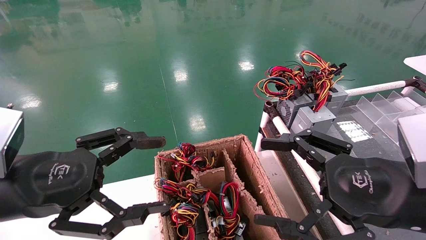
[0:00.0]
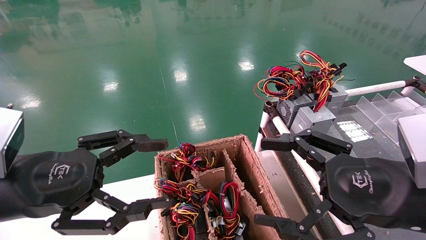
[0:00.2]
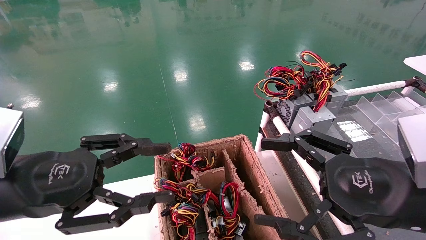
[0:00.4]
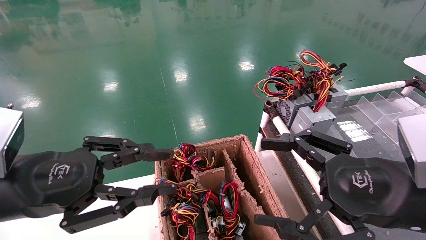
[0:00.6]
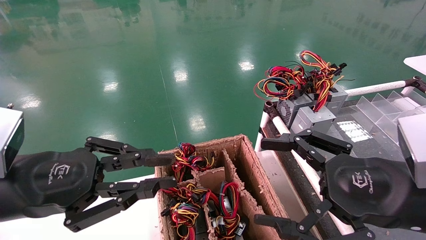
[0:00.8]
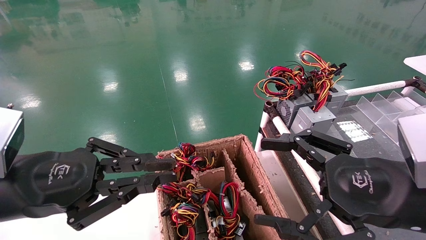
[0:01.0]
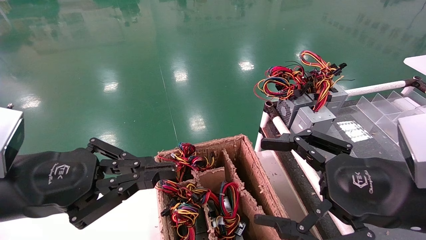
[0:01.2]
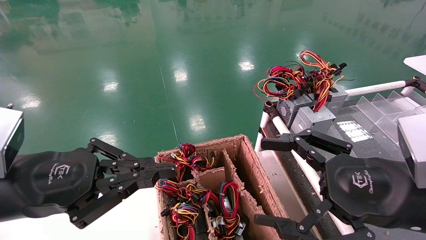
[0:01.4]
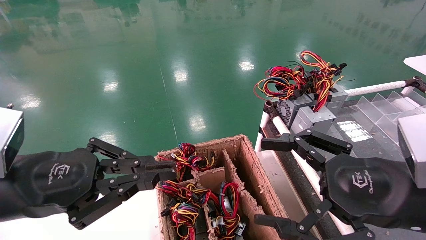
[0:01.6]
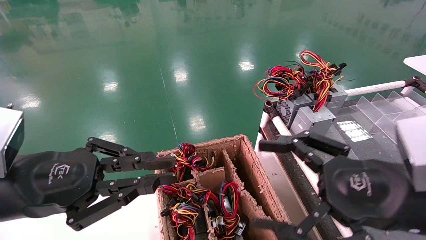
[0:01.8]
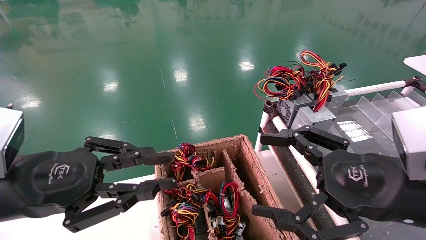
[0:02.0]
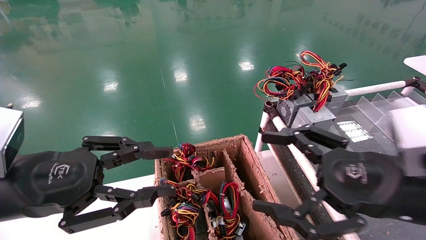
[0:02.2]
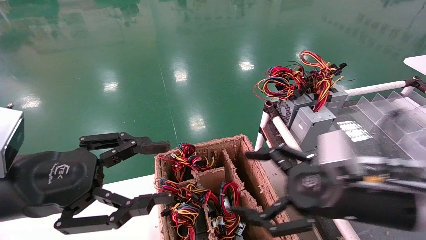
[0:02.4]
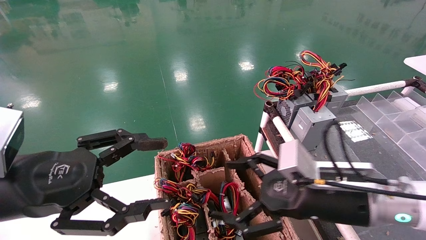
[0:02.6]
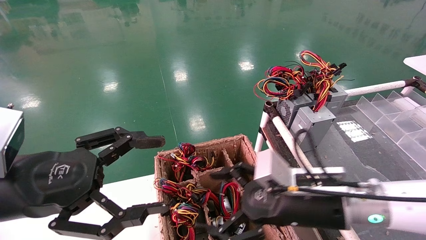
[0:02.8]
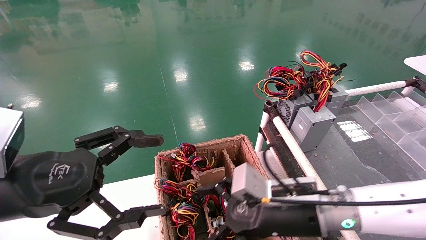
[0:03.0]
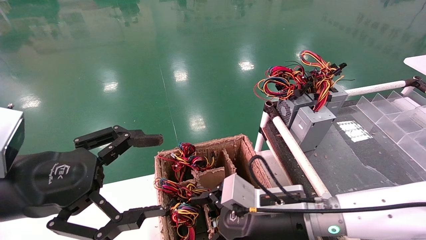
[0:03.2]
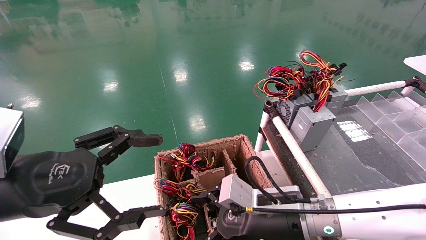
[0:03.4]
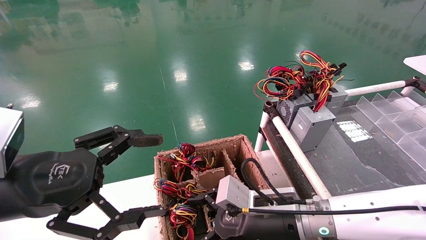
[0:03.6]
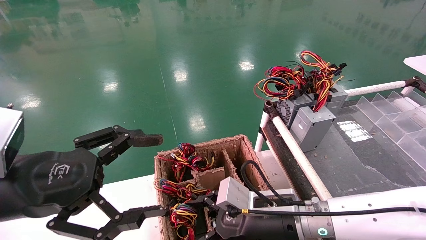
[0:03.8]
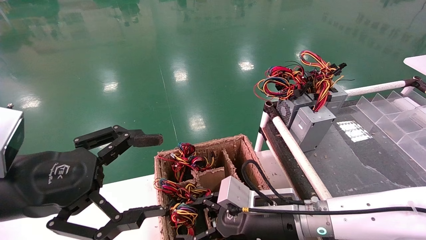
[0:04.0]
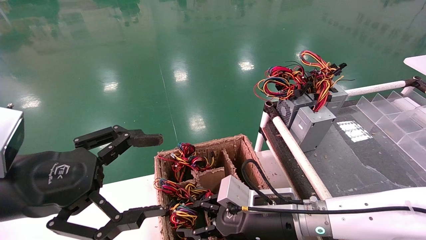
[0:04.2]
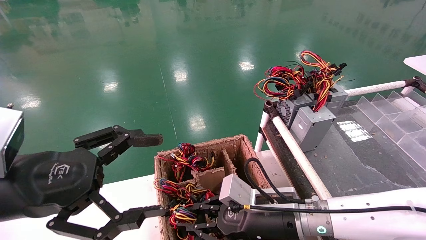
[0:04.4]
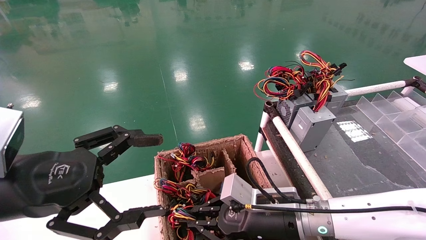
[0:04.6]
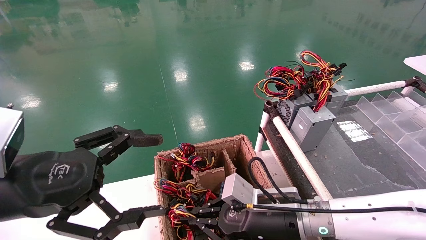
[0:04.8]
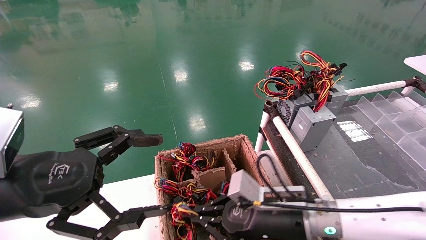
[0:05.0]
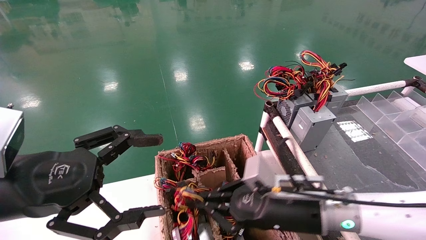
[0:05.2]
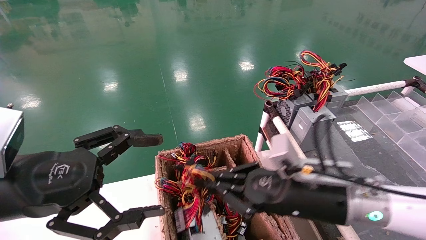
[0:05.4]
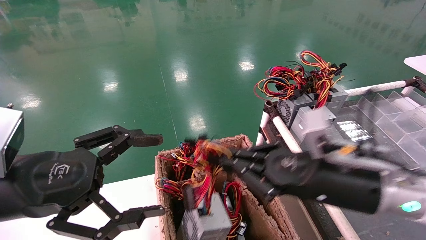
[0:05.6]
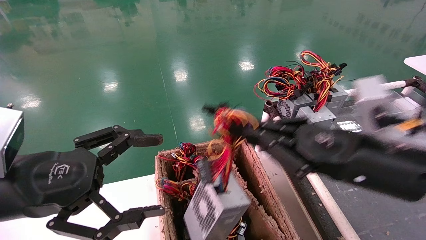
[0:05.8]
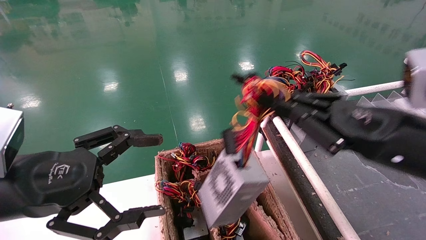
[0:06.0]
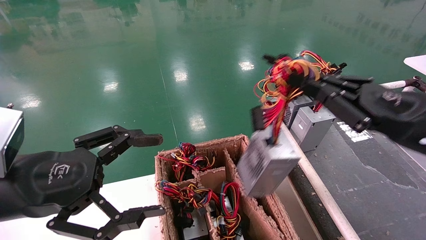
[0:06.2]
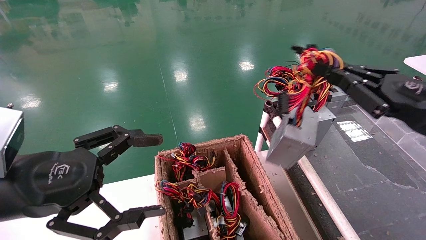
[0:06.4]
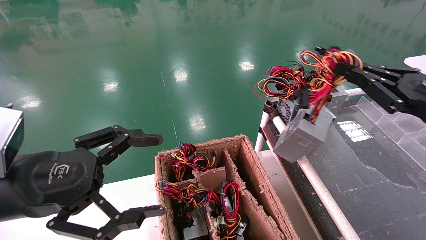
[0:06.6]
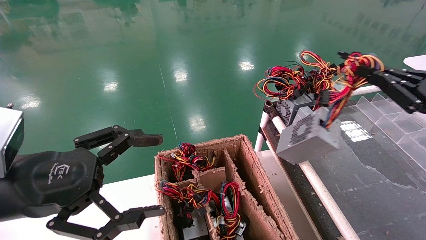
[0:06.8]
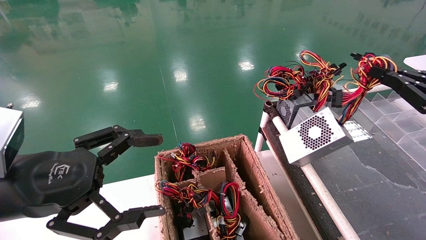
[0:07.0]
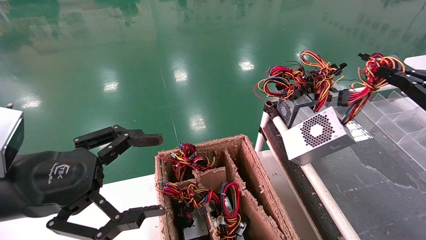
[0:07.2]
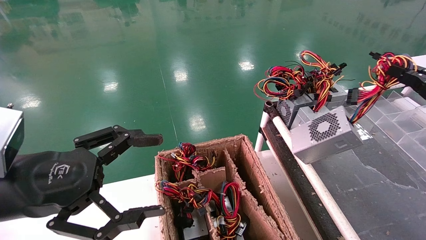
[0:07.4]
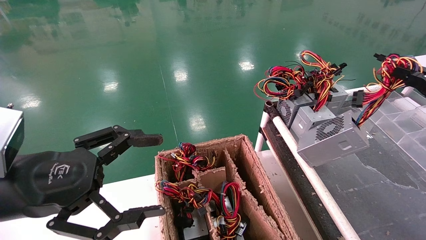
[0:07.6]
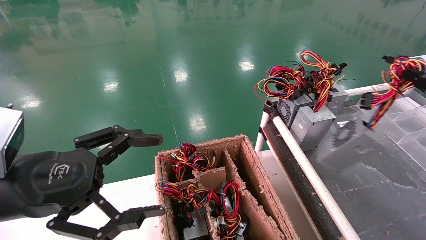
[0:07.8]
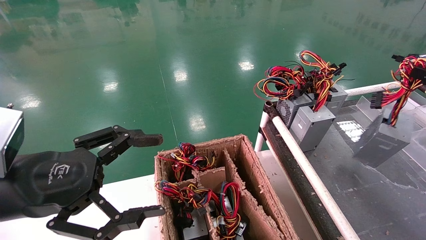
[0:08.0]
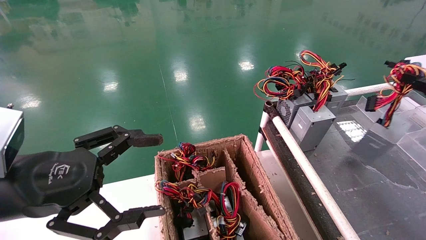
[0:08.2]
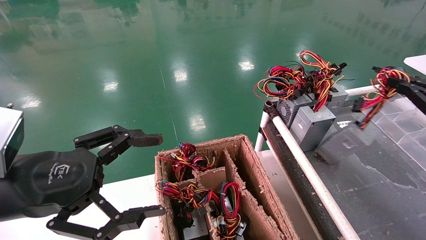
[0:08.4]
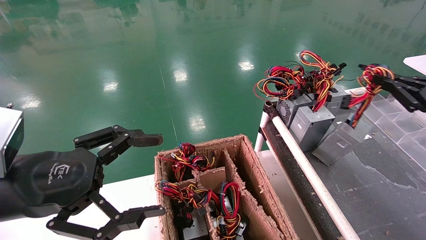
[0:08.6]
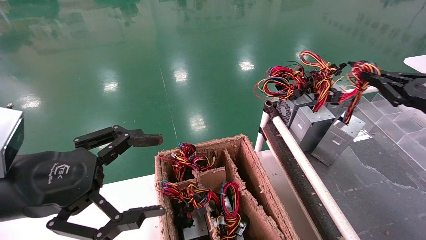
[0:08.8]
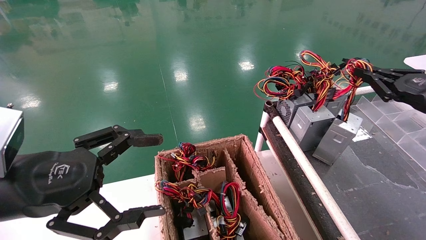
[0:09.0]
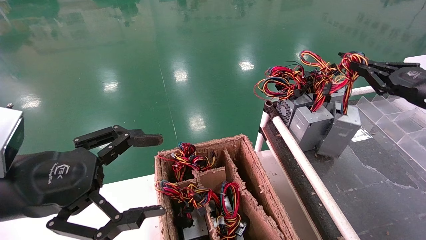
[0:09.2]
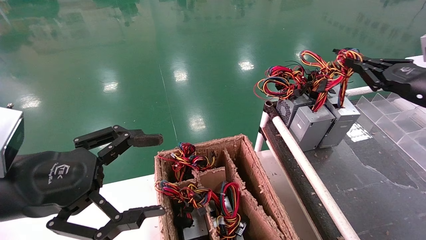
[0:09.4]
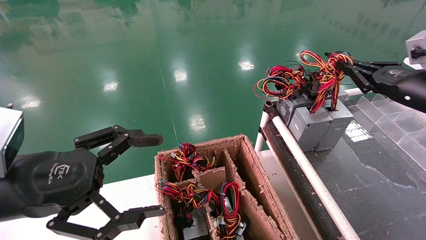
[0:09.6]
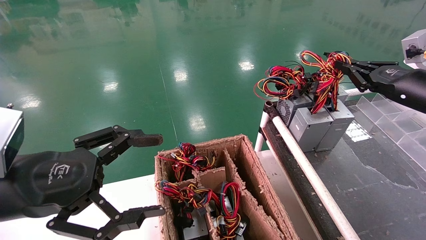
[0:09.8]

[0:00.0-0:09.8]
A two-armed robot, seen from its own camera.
Step, 0:01.2 to 0:04.6: Grab and lift the power supply from the large box.
0:00.0 to 0:01.4: The left gripper closes up.
0:01.4 to 0:02.8: The right gripper is displaced to the left, forward and downward by approximately 15 cm, while the left gripper opens up.
0:02.8 to 0:04.2: The right gripper moves downward, some 5 cm, and closes its fingers.
0:04.2 to 0:05.6: The right gripper moves upward and to the right, approximately 15 cm, and closes its fingers.
0:05.6 to 0:07.0: The right gripper shifts about 25 cm to the right.
0:07.0 to 0:08.4: The right gripper shifts by some 5 cm.
0:08.4 to 0:09.8: The right gripper is displaced forward and to the left by some 10 cm.

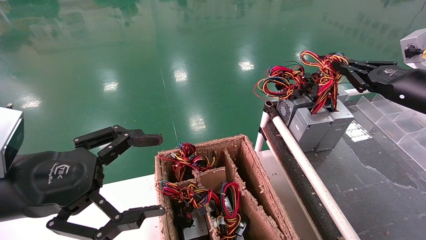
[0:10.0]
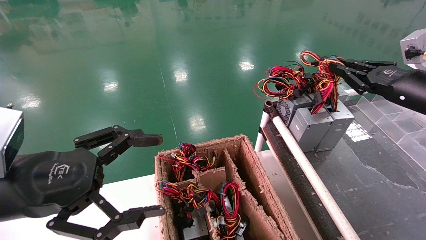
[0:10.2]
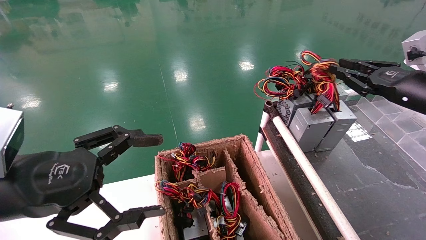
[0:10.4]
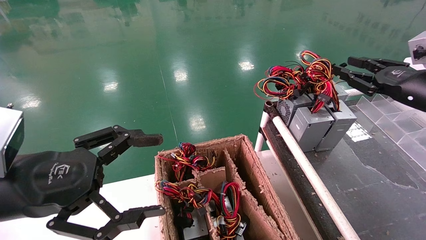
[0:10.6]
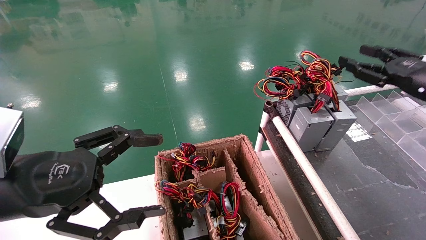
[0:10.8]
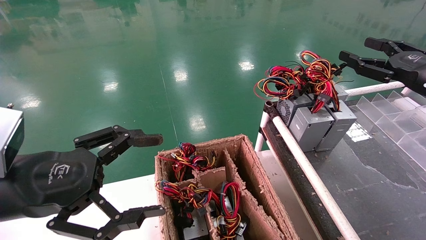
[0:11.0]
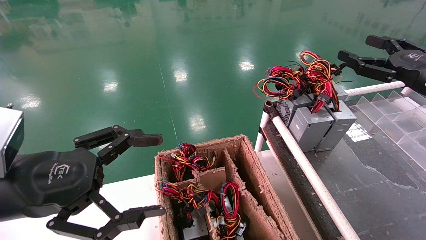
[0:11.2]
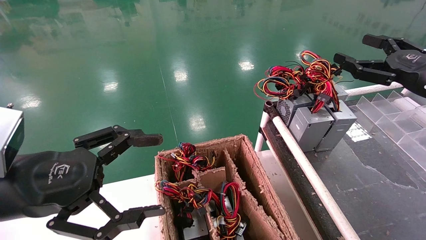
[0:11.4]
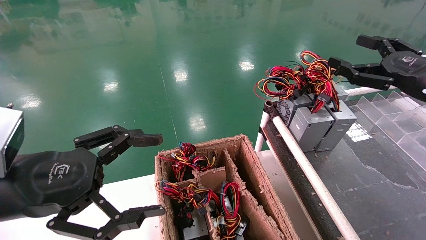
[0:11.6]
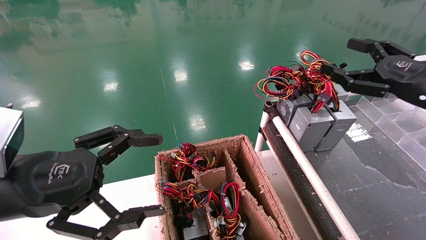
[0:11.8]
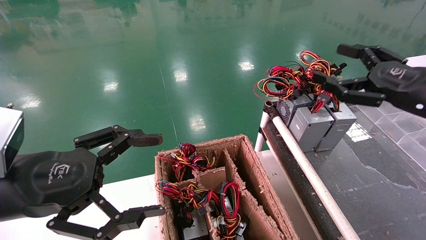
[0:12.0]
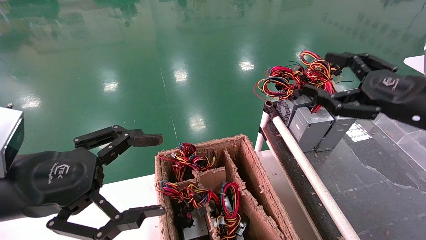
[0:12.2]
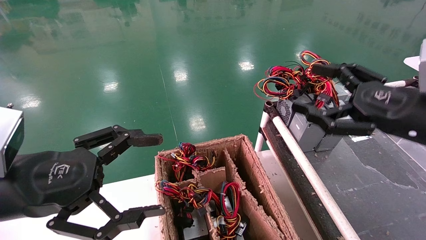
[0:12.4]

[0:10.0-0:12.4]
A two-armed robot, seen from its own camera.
0:10.0 to 0:11.2: The right gripper opens up.
0:11.2 to 0:12.4: The right gripper shifts approximately 10 cm to the left and backward.
